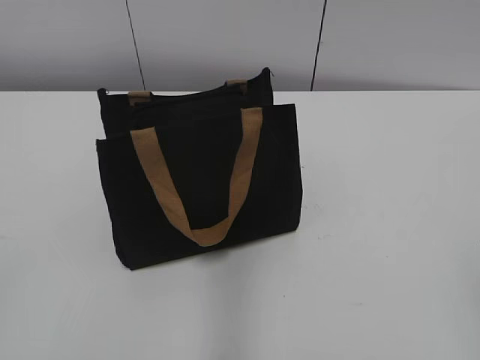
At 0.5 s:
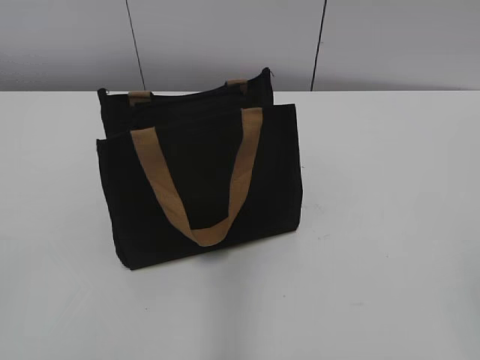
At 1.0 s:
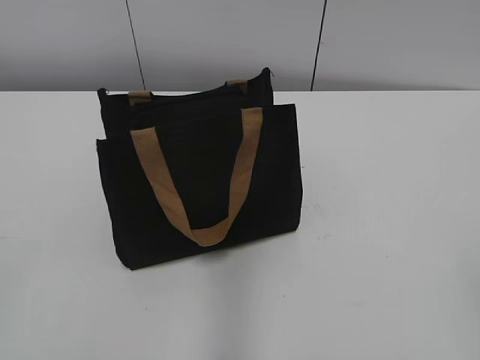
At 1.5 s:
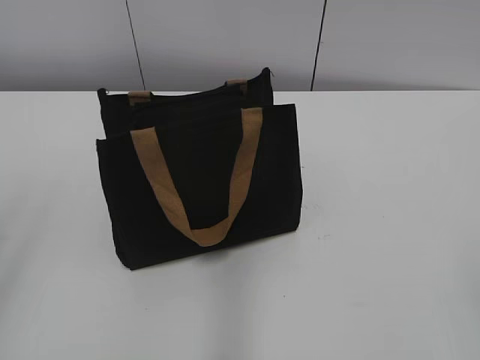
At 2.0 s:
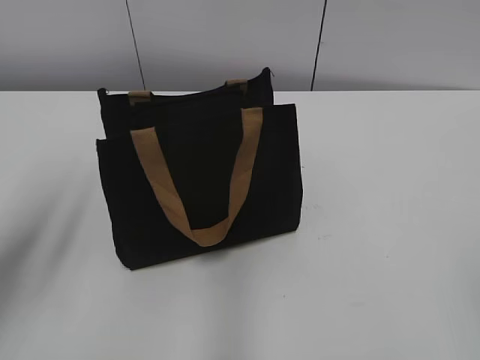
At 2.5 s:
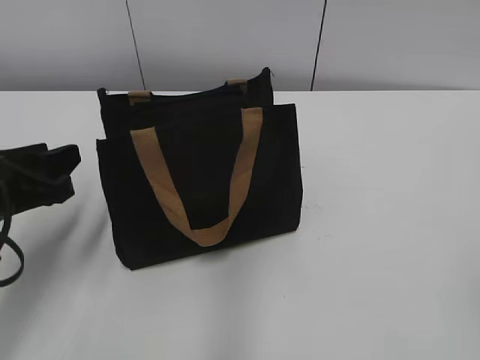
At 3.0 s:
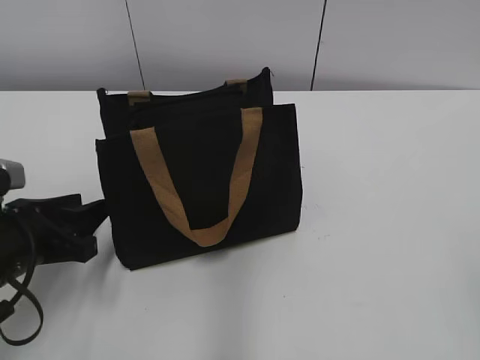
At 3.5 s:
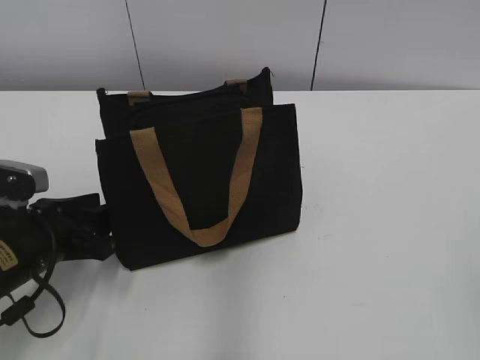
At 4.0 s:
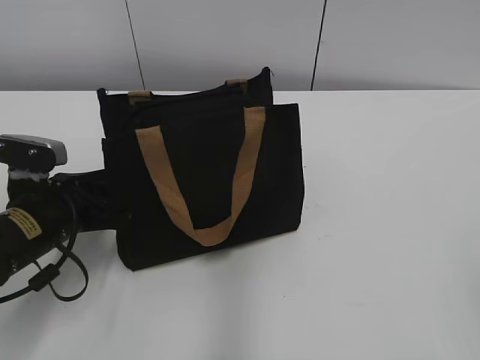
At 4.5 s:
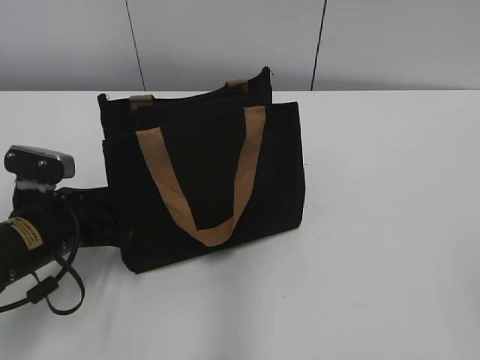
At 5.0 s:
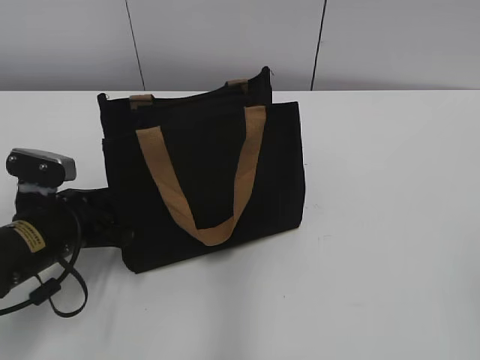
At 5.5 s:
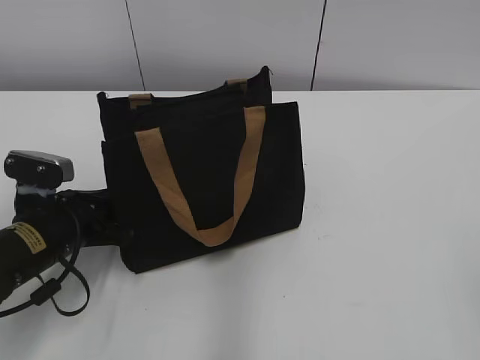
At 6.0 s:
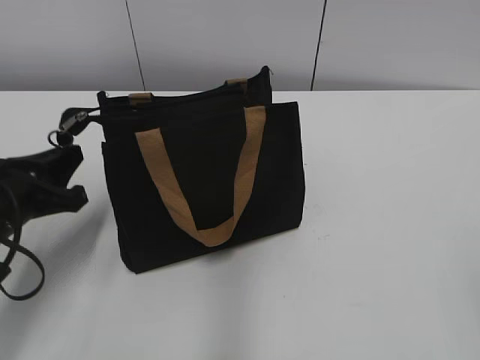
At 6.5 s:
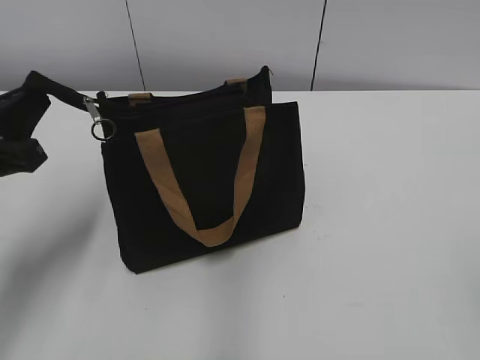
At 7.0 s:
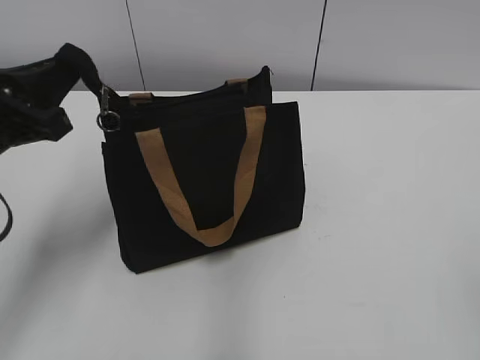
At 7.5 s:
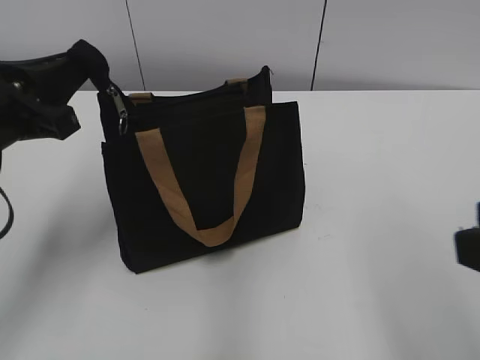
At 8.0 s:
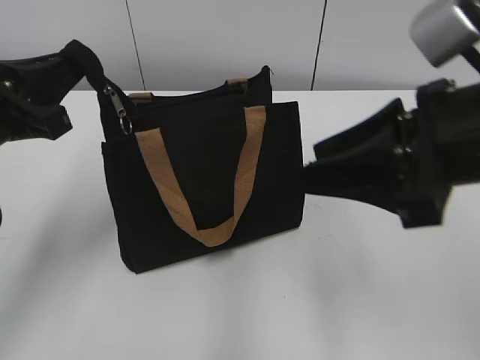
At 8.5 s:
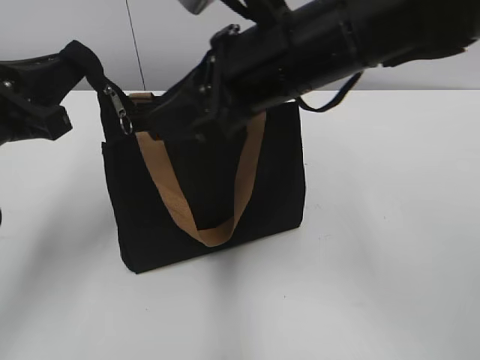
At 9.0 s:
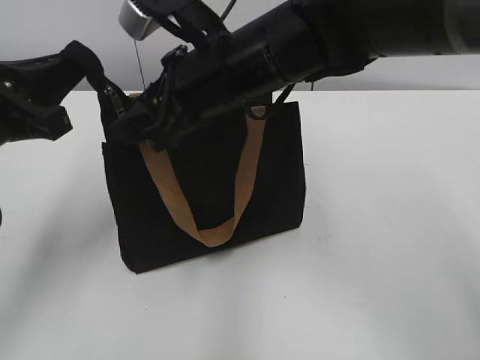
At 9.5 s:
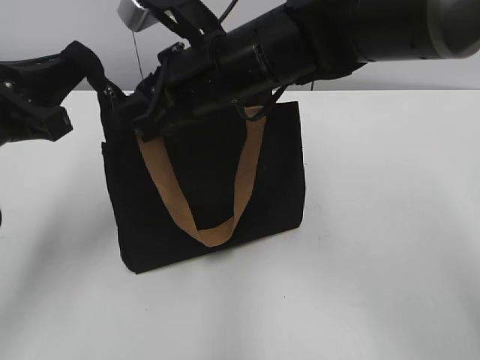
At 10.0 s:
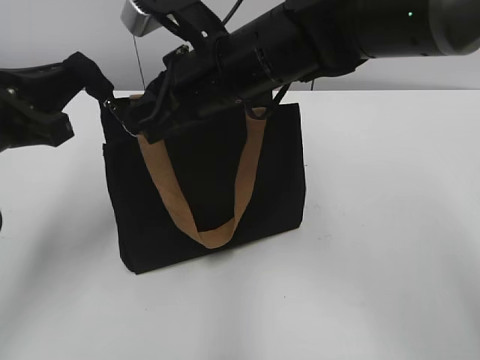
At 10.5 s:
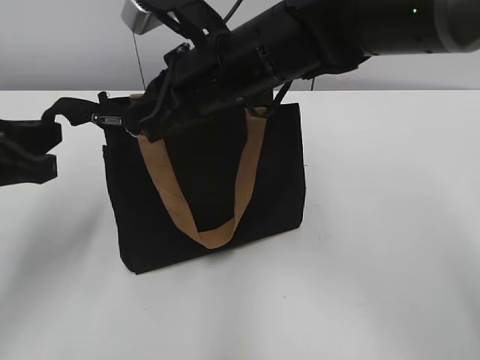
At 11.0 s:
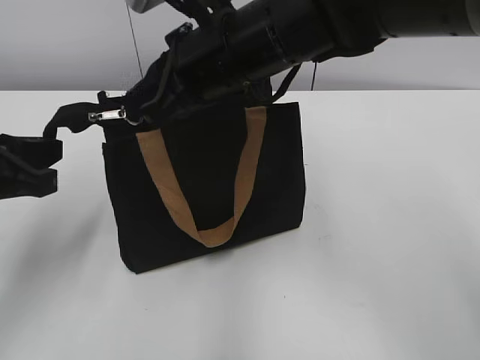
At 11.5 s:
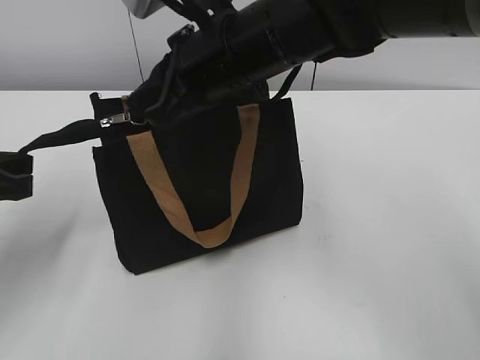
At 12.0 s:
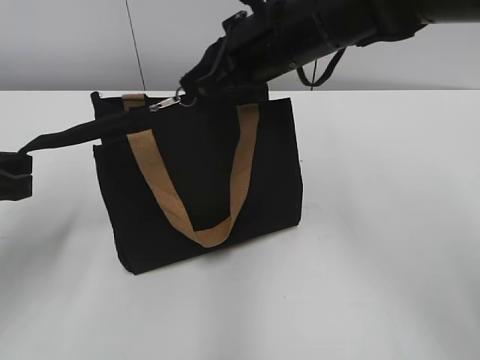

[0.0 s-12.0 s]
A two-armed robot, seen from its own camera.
2.0 to 4.0 s: The left gripper moves downward and forward, about 20 cm.
4.0 to 6.0 s: The left gripper shifts by roughly 5 cm, and closes.
6.0 to 8.0 s: The left gripper travels upward by some 10 cm. The right gripper shifts roughly 25 cm forward and to the left.
8.0 to 10.0 s: The right gripper is displaced to the left and forward by roughly 20 cm, and closes up.
10.0 to 12.0 s: The right gripper travels to the right by about 5 cm. The left gripper shifts by some 5 cm.

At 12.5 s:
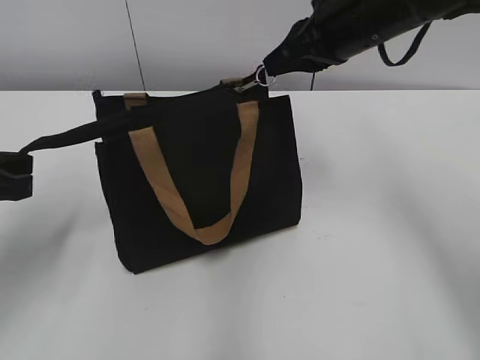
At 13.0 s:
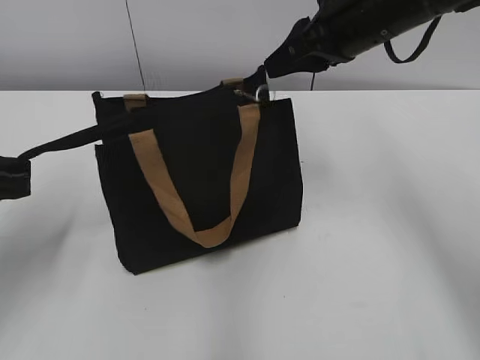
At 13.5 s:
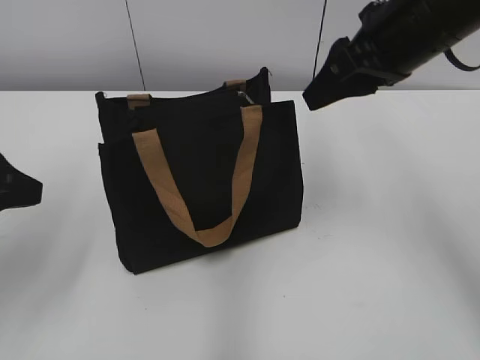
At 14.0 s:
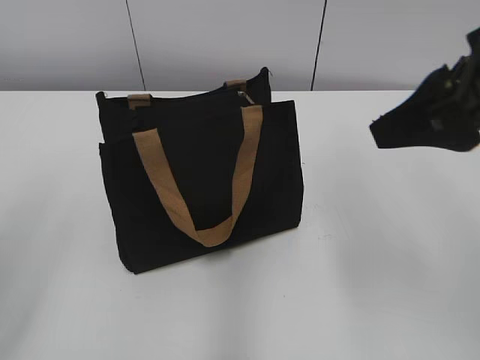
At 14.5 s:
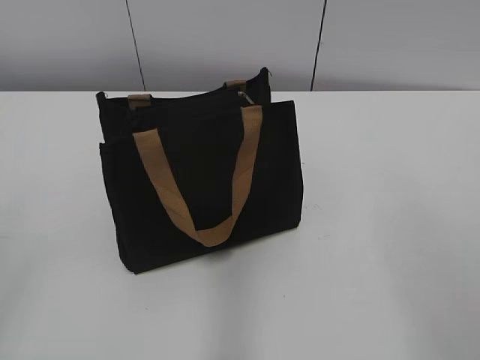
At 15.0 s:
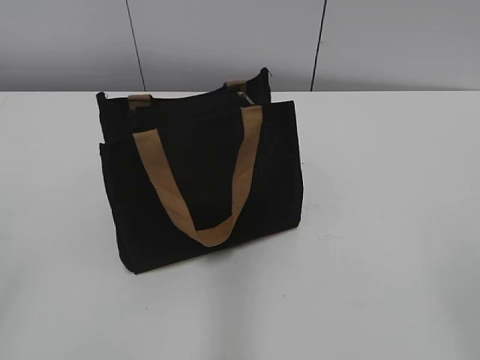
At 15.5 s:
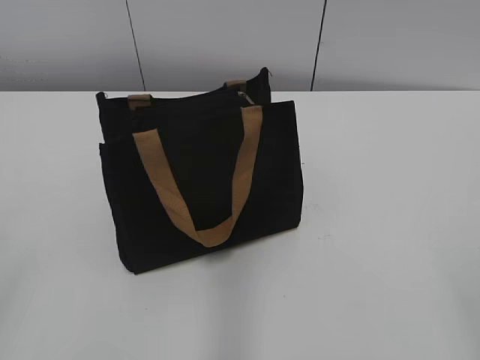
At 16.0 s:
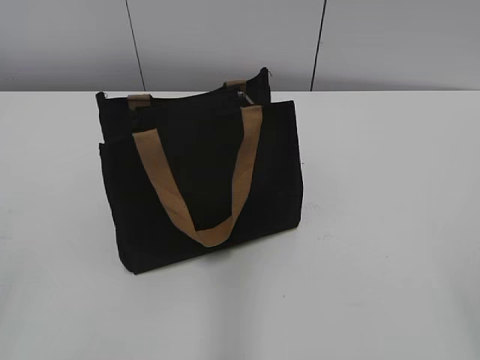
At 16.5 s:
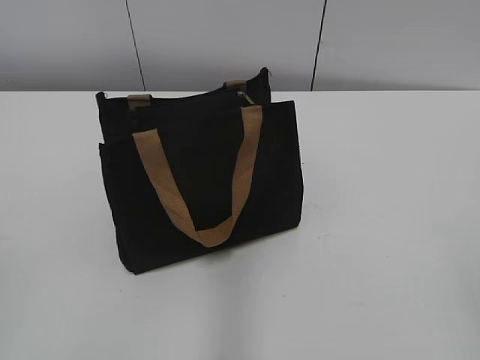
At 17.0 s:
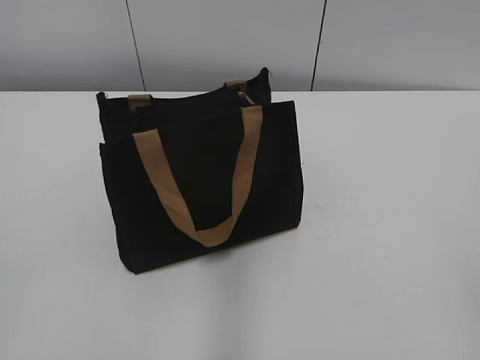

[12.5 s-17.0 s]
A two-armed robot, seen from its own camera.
12.5 to 14.5 s: The left gripper shifts some 20 cm backward and upward, and opens its fingers; the right gripper shifts roughly 30 cm backward, and opens.

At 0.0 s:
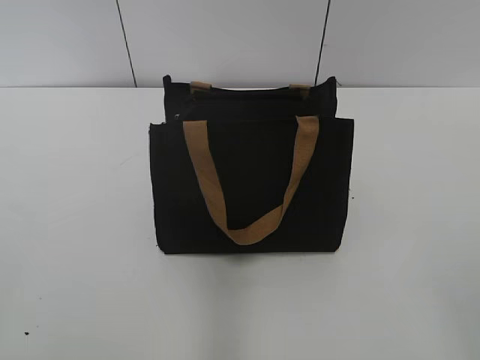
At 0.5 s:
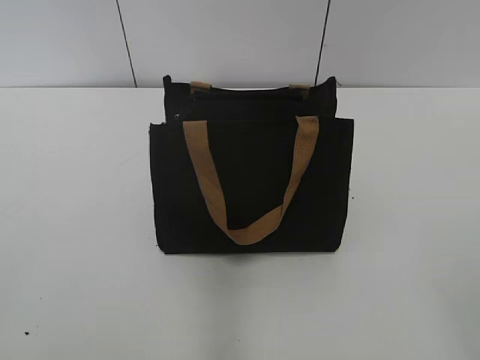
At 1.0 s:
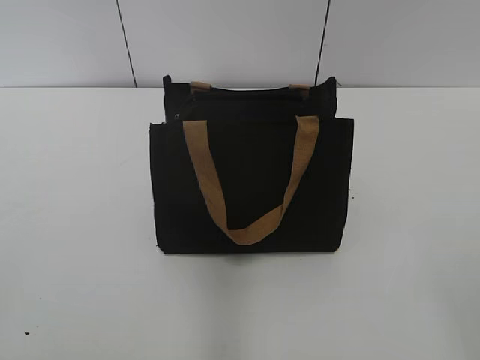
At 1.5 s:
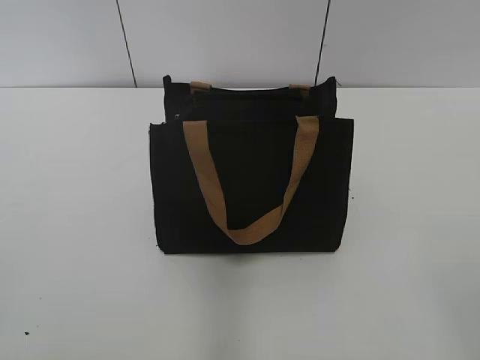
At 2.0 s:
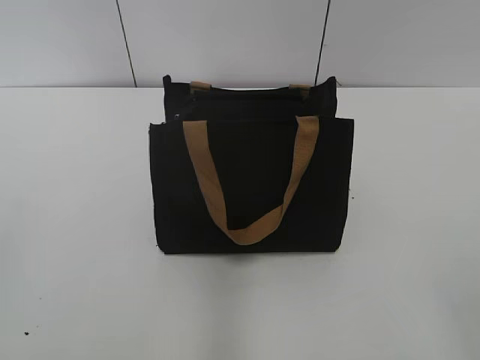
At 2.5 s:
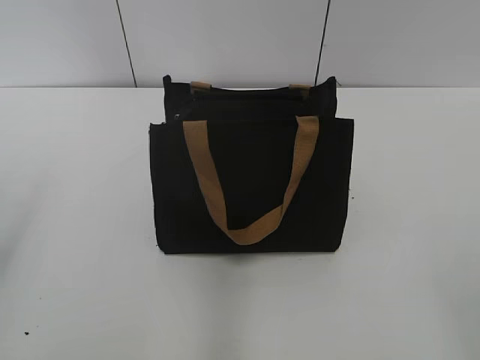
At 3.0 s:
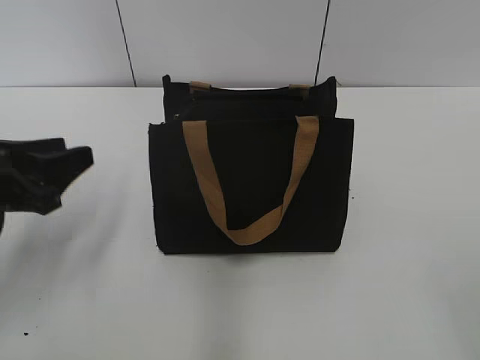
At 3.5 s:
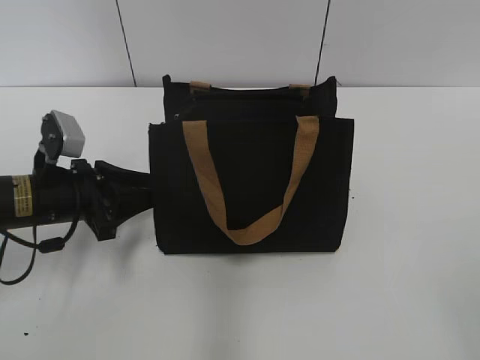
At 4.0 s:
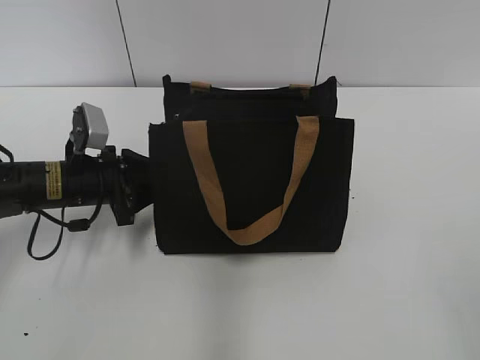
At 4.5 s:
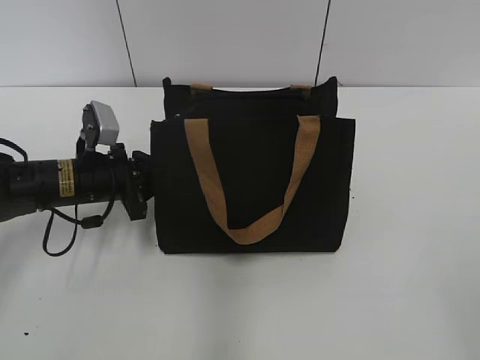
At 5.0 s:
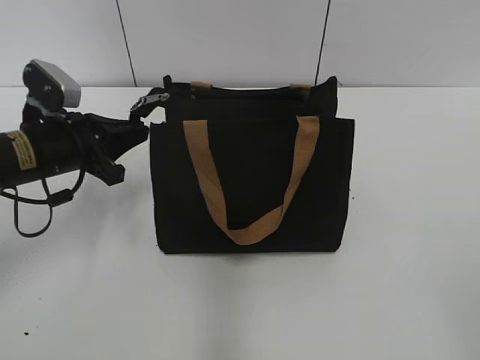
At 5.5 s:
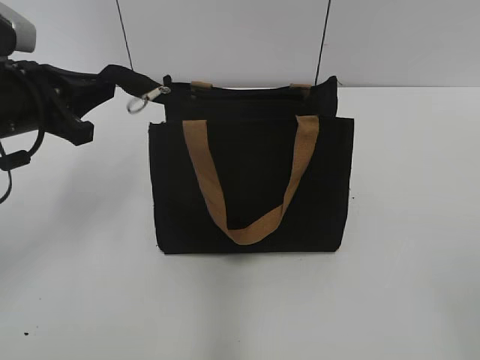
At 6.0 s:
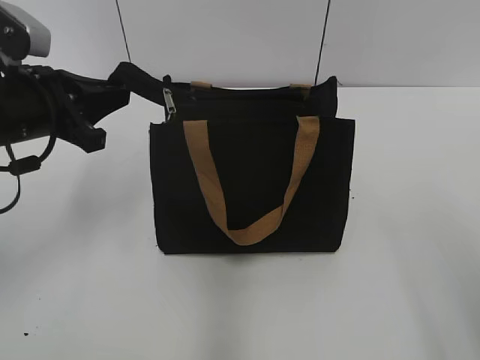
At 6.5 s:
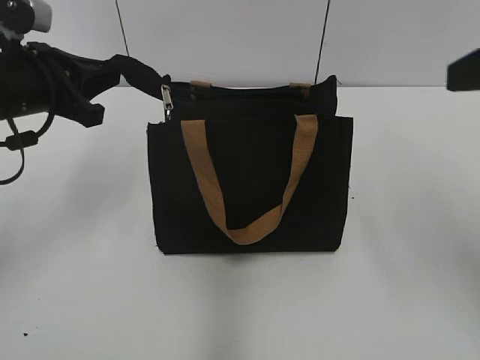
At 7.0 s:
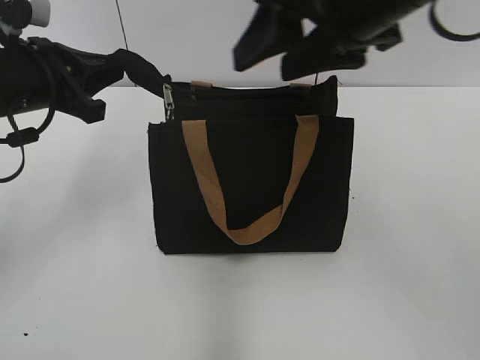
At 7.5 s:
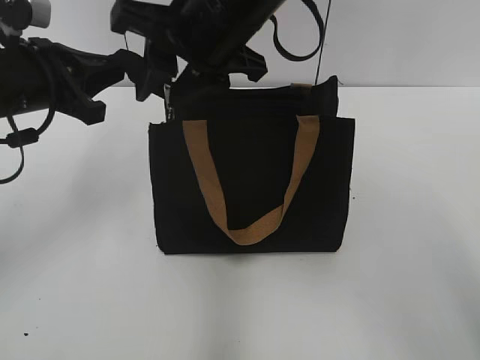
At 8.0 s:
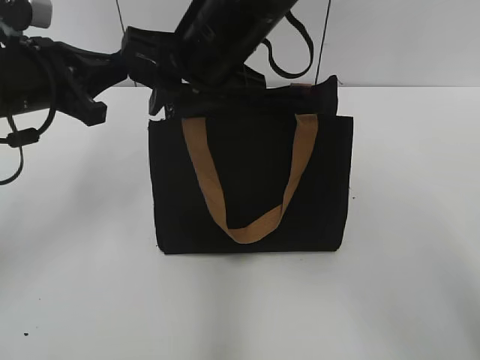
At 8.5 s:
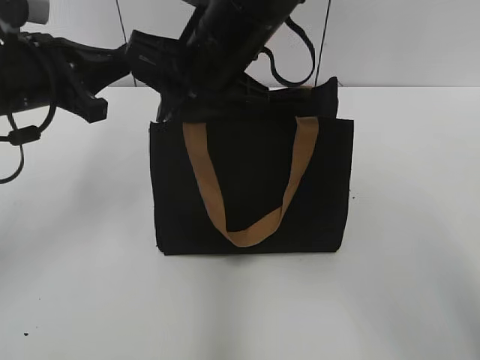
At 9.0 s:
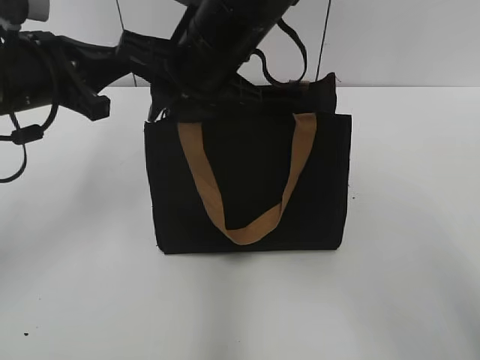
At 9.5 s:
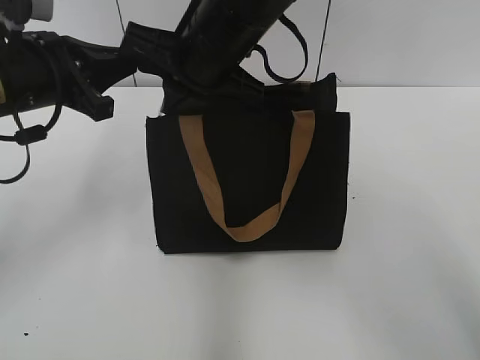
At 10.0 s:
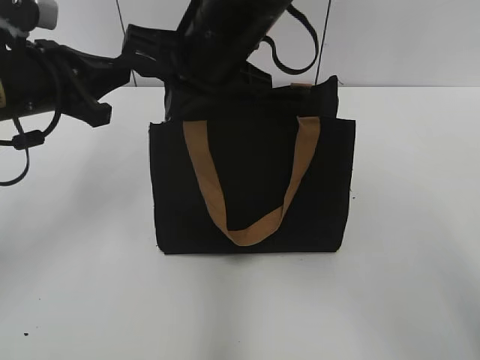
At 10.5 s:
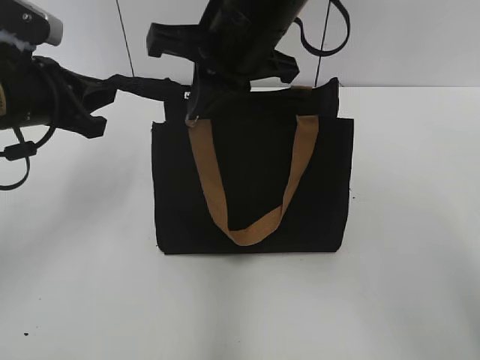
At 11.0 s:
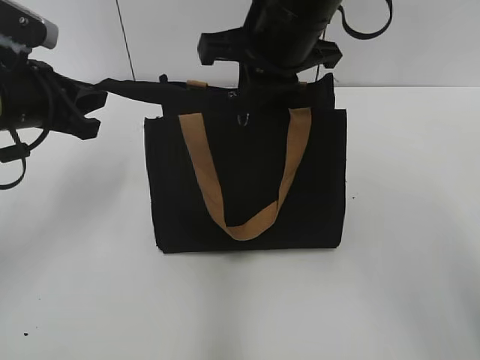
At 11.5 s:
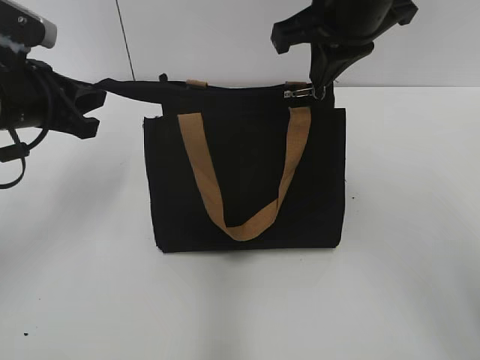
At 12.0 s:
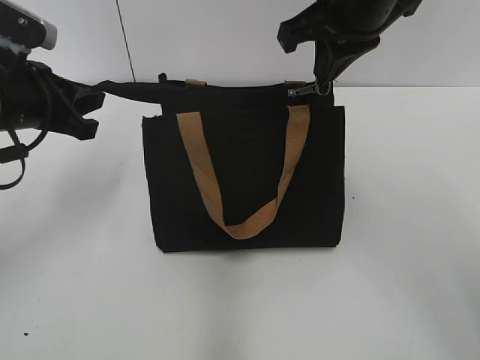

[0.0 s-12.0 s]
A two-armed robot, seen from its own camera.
2.0 to 4.0 s: The left gripper heads forward and downward, covering roughly 40 cm.
4.0 to 6.0 s: The left gripper heads upward, covering about 15 cm, and closes its fingers.
6.0 to 8.0 s: The right gripper travels forward and to the left by approximately 40 cm.
8.0 to 10.0 s: The right gripper closes.
10.0 to 12.0 s: The right gripper heads to the right, covering approximately 10 cm.
